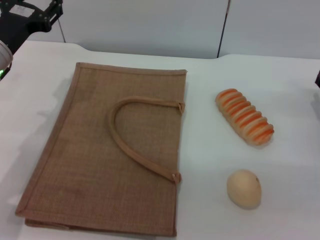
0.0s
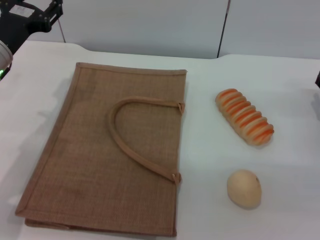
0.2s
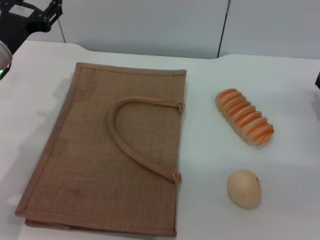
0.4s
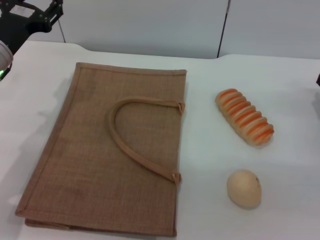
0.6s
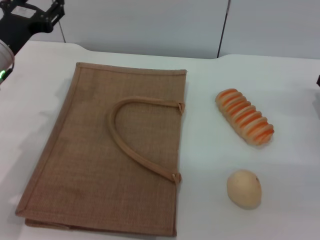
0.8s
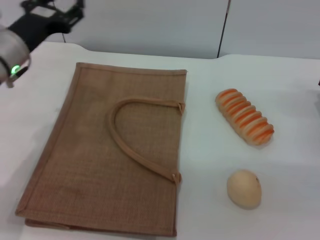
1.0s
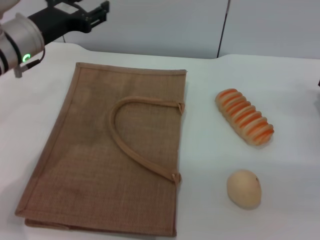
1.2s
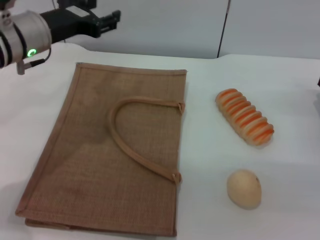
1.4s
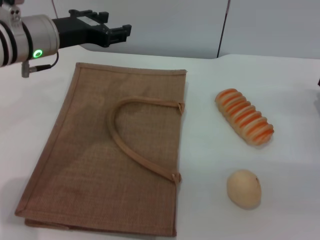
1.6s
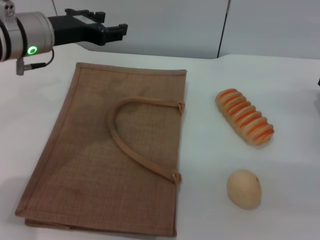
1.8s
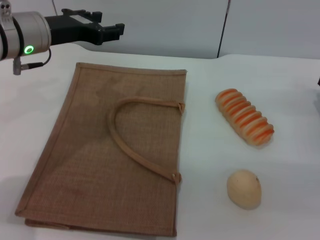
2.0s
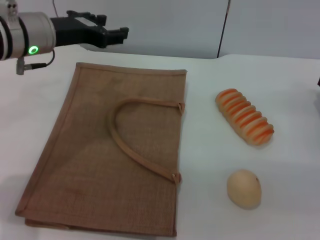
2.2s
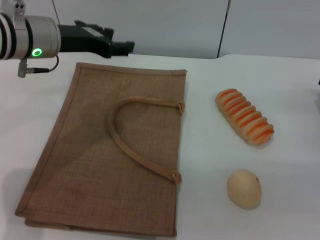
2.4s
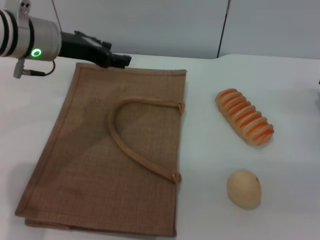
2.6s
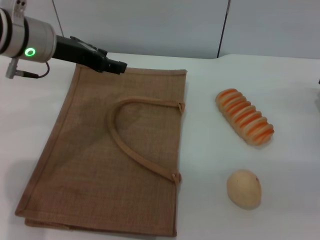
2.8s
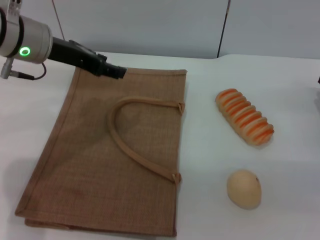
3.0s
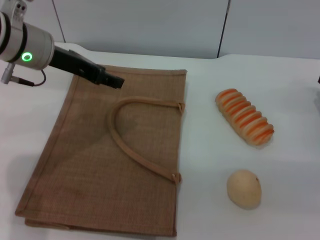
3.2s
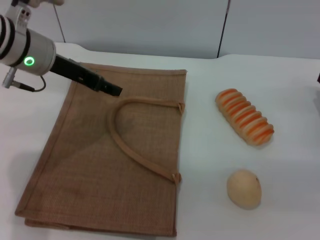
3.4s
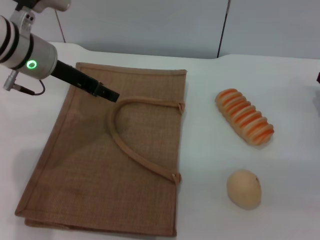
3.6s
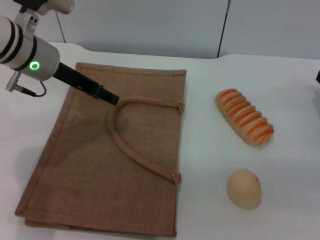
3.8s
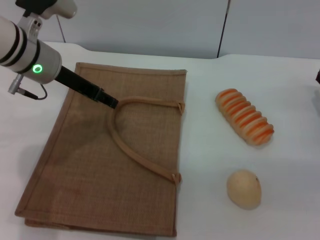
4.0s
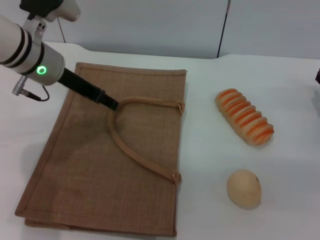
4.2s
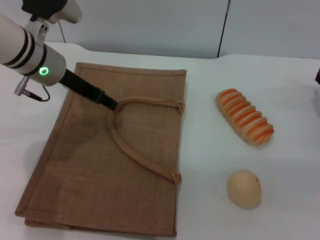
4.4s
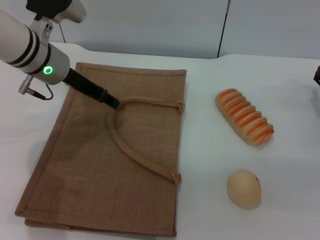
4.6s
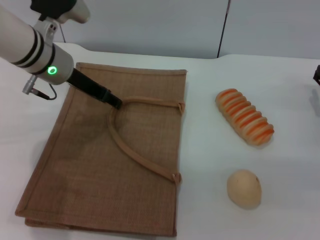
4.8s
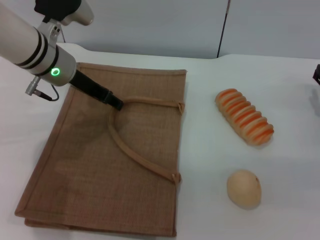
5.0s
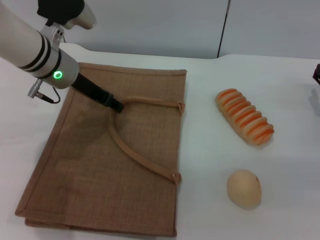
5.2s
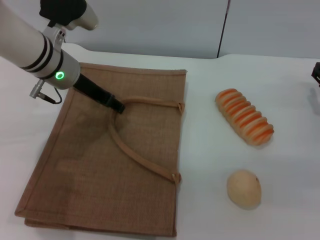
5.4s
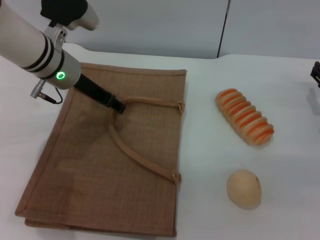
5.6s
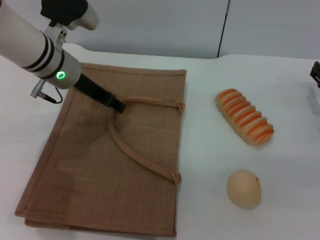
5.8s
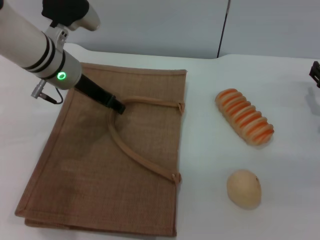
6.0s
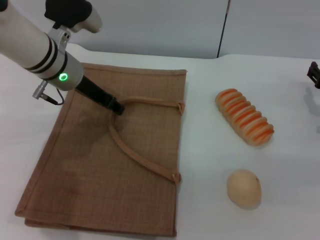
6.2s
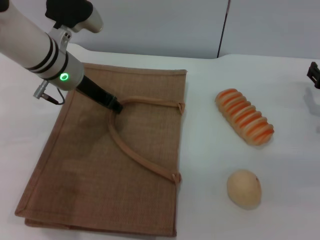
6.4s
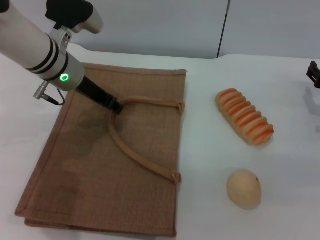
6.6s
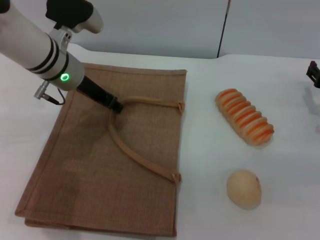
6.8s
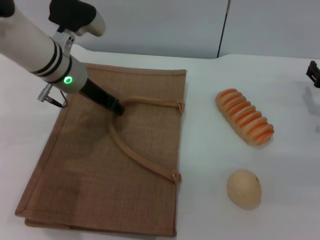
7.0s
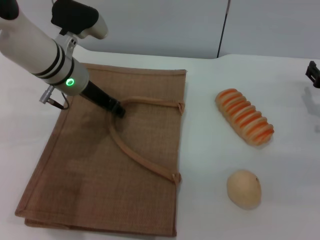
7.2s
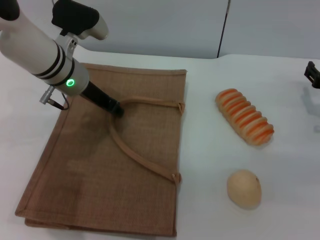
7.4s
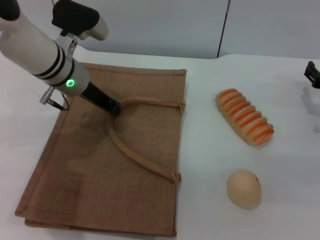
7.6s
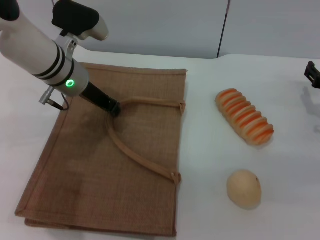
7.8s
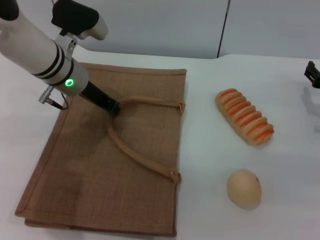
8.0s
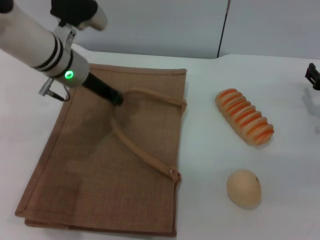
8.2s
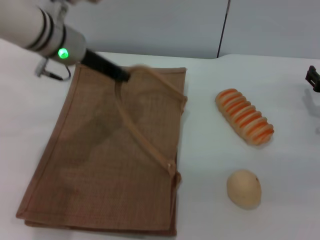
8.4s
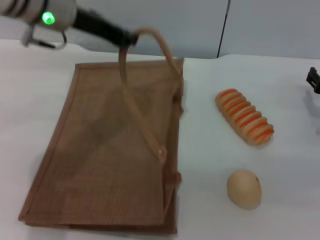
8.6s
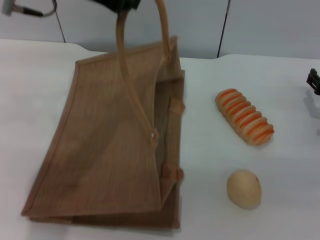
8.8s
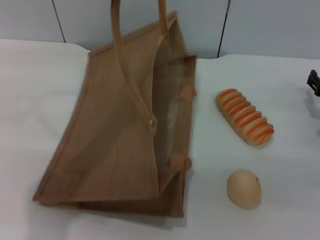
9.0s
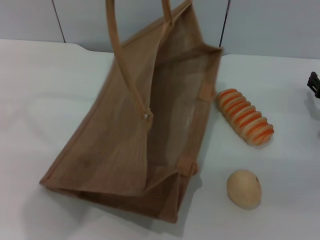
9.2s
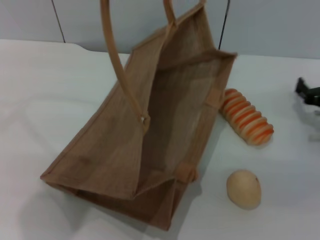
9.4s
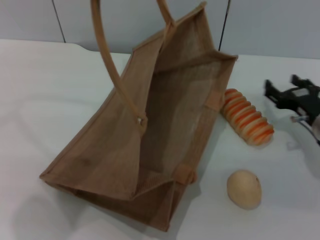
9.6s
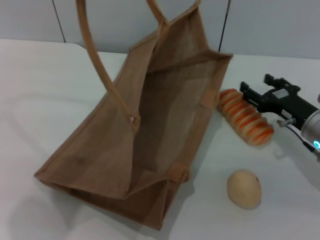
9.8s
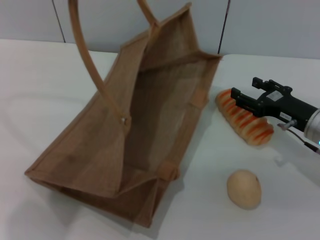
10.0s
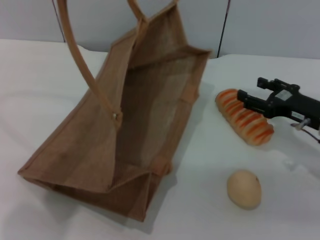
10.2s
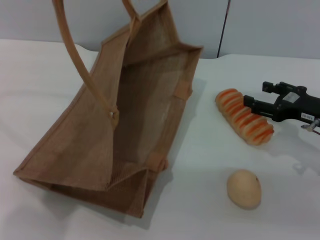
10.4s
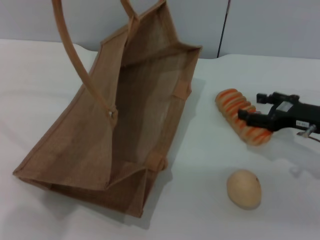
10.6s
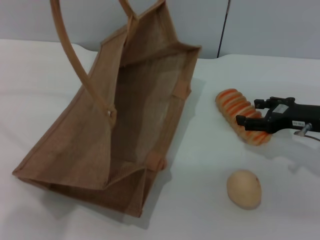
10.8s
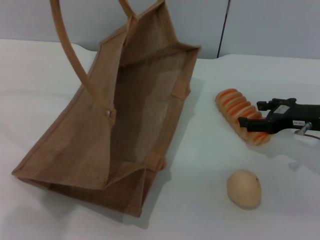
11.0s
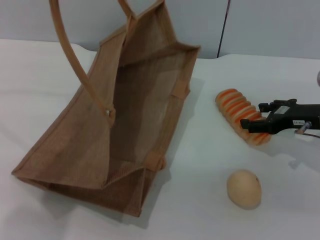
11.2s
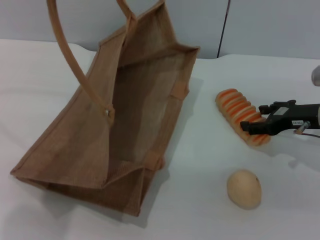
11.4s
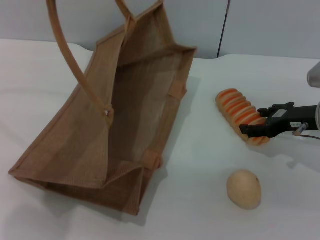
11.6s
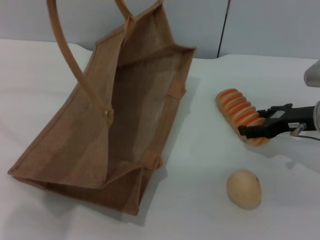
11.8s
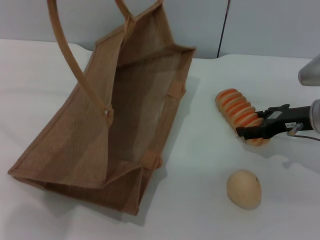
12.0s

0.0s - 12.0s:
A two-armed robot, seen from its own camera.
Task of the whole recording: pick up the bread and egg yolk pastry from the table and place it in the brown handbag.
Step, 0.0s - 9.2s: Lift the woven bag with the left gripper to open it.
0.0s - 1.6s: The left gripper travels to the right and upward by roughly 10 cm.
3.0s - 4.4s: The left gripper changes place by about 5 cm.
4.4s - 6.0s: The grippers stay close to where they were, moving slightly.
6.0s - 7.6s: The left gripper closes.
7.6s - 9.0s: The left gripper is displaced upward by some 20 cm.
9.0s - 10.4s: The left gripper ends up approximately 5 cm from where it was. The right gripper moves about 5 cm.

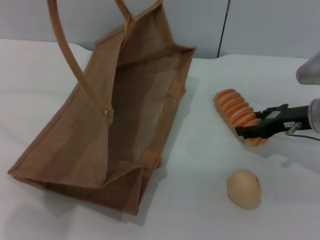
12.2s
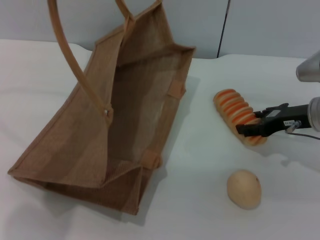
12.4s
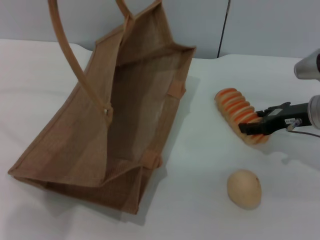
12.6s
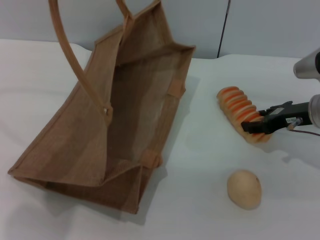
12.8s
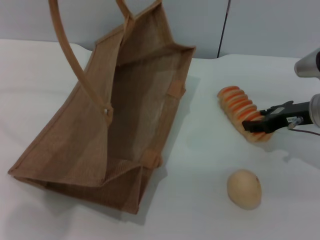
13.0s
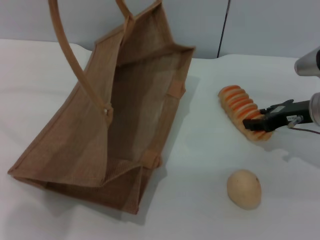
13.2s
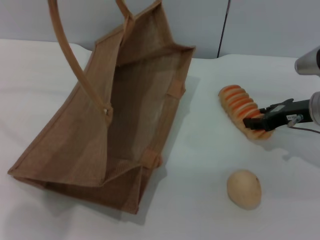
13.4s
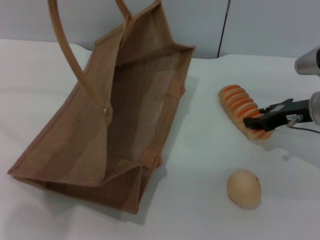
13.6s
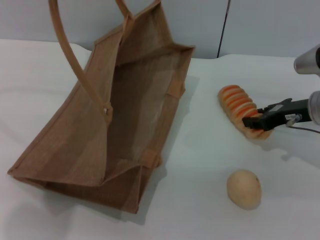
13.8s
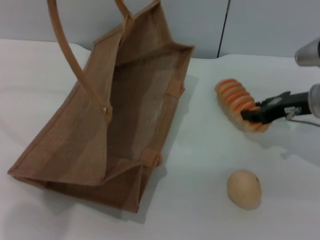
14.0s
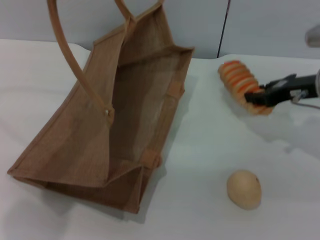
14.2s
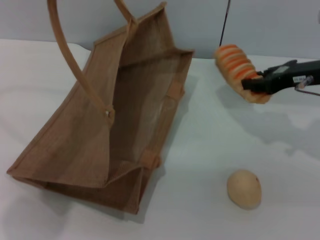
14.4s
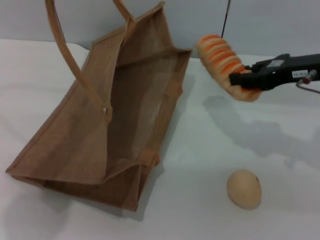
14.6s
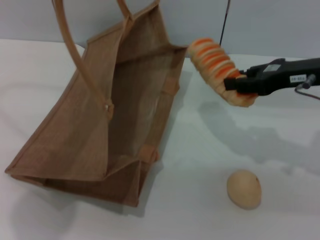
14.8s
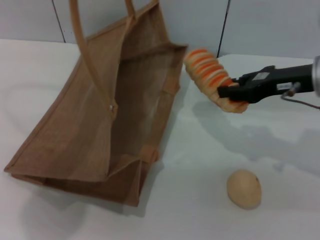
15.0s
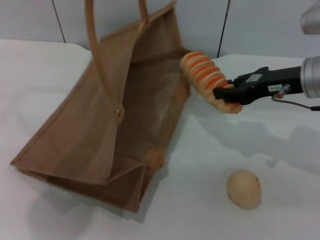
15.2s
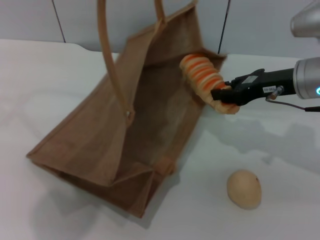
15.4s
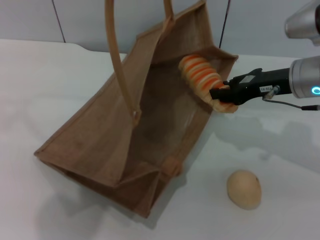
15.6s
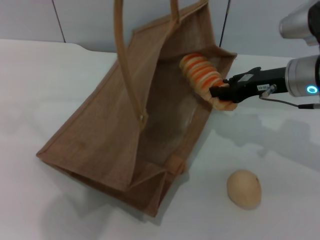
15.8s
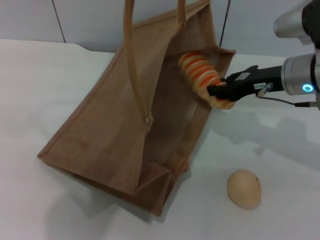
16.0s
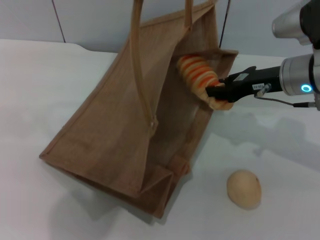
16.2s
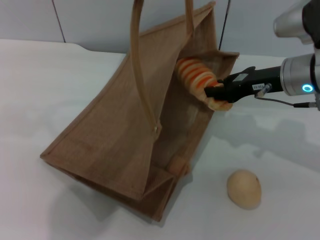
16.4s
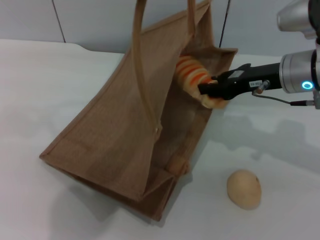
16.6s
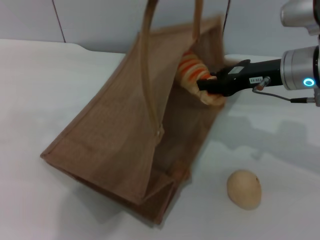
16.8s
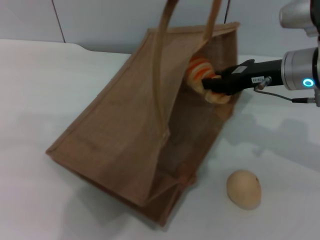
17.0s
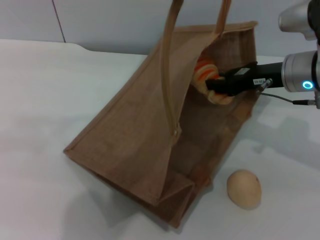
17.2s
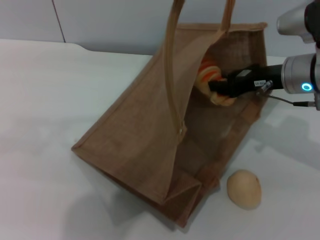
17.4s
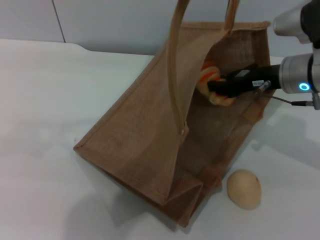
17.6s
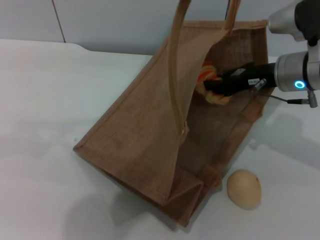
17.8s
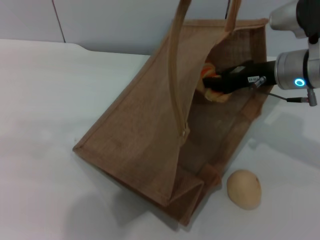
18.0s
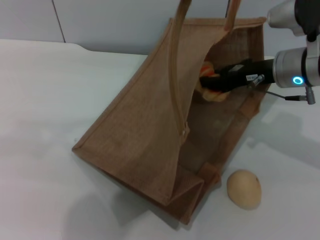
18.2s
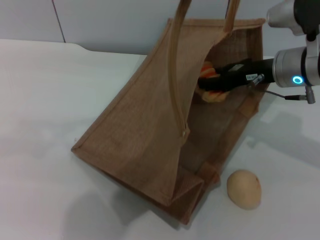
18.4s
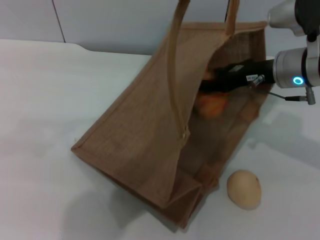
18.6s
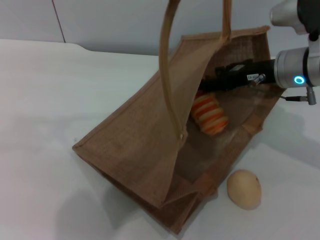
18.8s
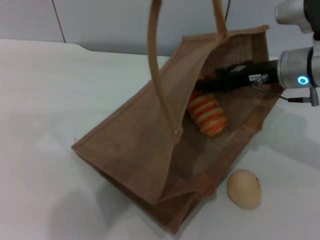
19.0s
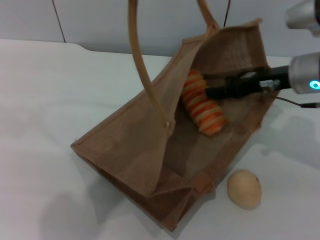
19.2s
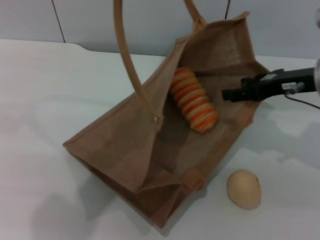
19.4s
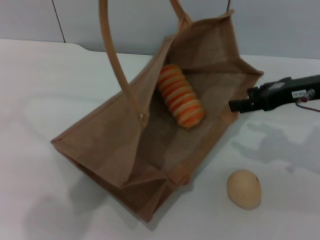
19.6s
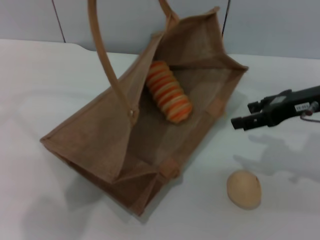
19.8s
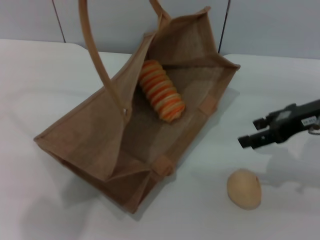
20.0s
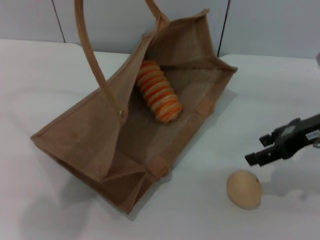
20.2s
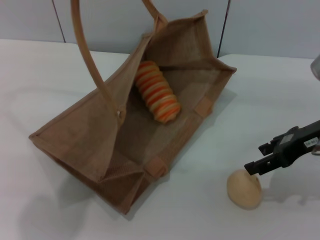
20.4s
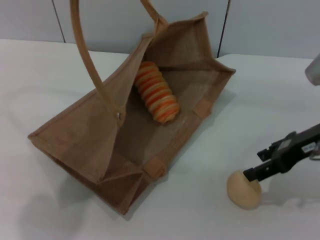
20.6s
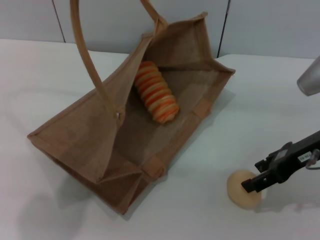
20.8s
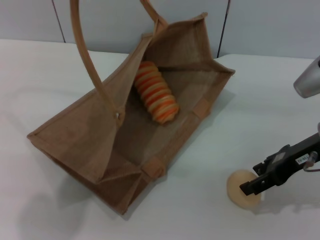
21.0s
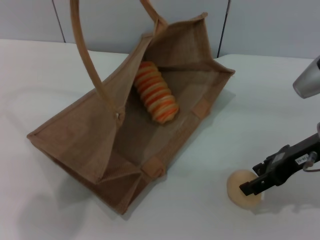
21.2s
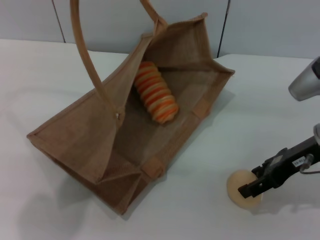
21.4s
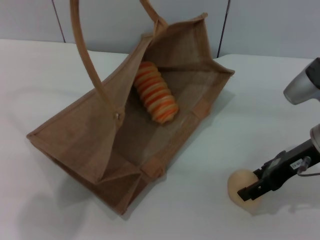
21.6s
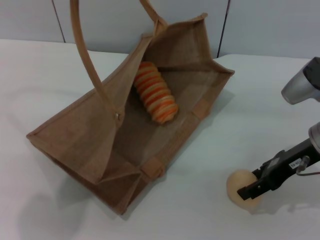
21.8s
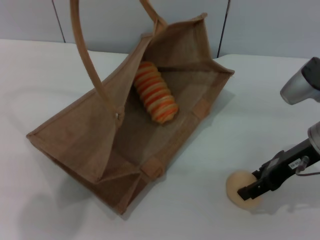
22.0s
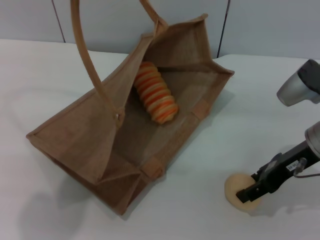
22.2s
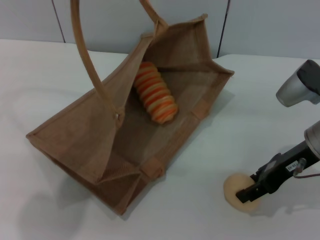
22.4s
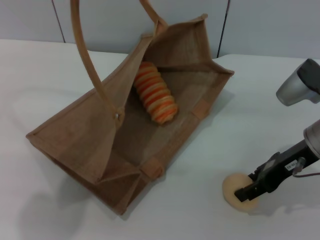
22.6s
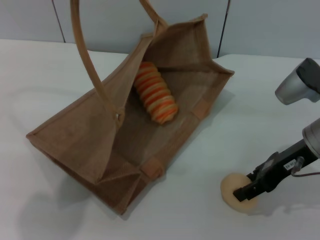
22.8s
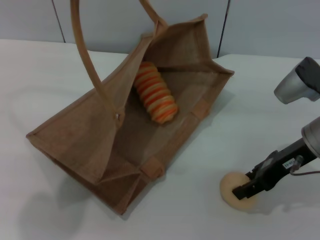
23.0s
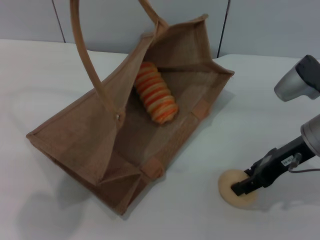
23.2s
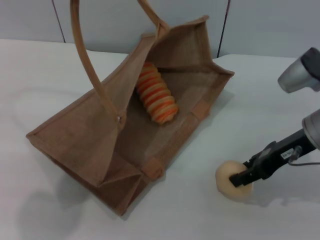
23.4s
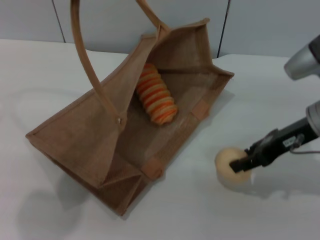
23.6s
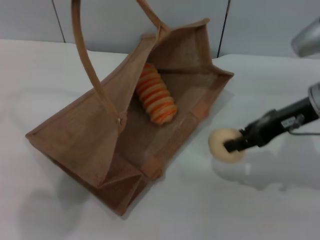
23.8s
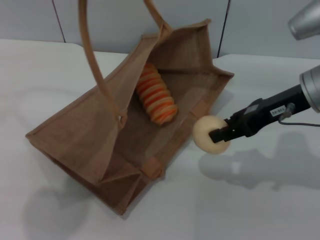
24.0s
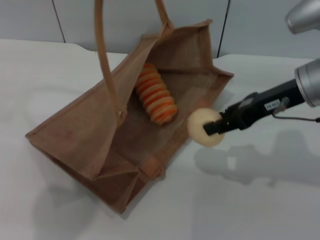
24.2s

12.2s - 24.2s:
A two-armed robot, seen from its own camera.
Task of the whole recording: pick up the bread and egg yolk pastry from the table and place it in the brown handbag.
Step, 14.2s - 19.2s: Place the bread into the woven bag with the right gripper.
Step, 19.4s - 23.4s: Pick up the egg yolk pastry with the right gripper.
12.2s - 13.8s: The right gripper closes.
13.8s - 15.2s: The right gripper heads upward, covering about 5 cm.
18.2s - 19.8s: The right gripper goes some 10 cm to the right and backward, and opens; the left gripper moves to the left, approximately 10 cm.
21.2s - 22.6s: The grippers make only small movements.
22.6s - 24.2s: The right gripper moves upward, some 5 cm.
